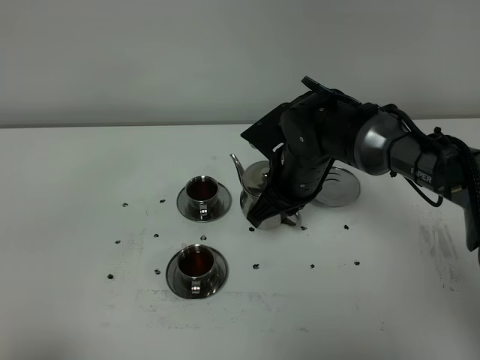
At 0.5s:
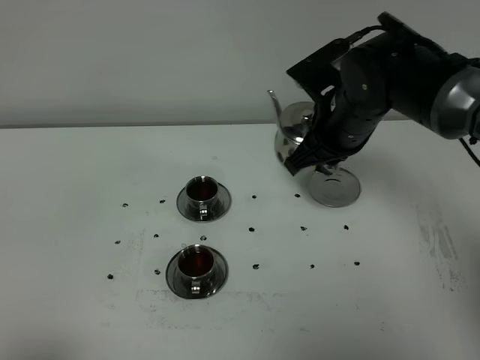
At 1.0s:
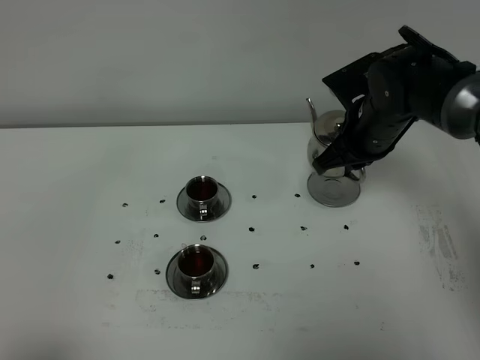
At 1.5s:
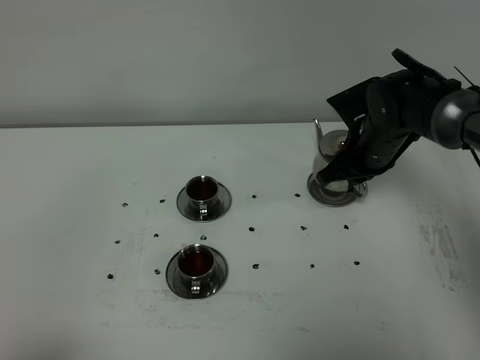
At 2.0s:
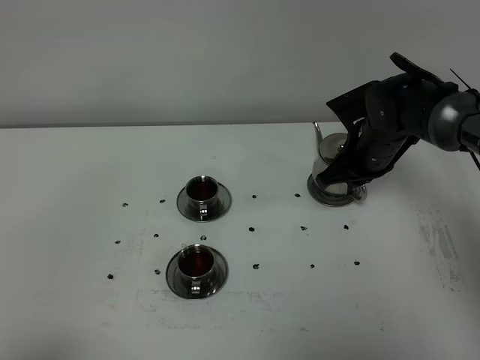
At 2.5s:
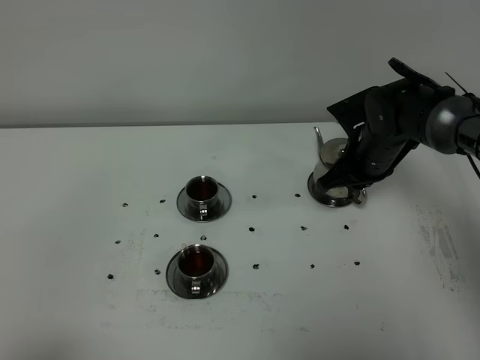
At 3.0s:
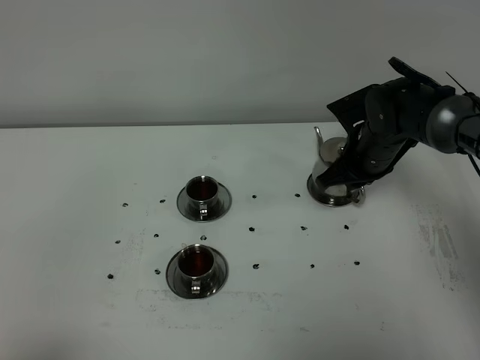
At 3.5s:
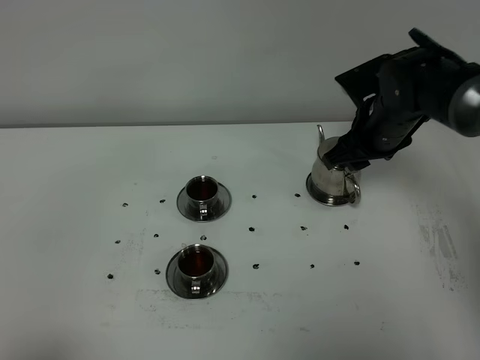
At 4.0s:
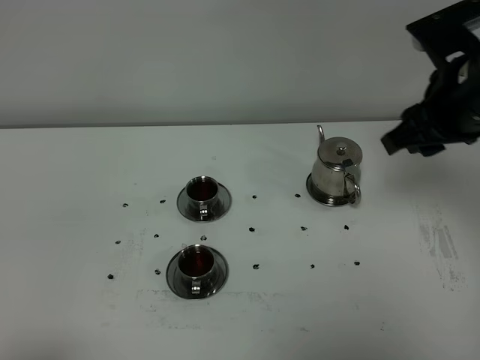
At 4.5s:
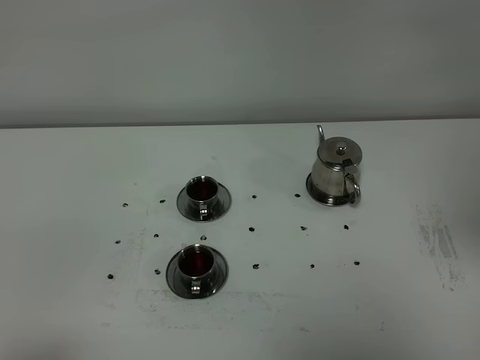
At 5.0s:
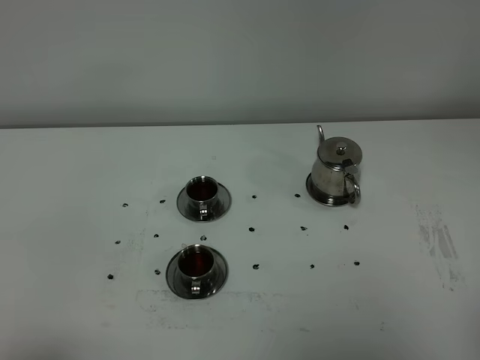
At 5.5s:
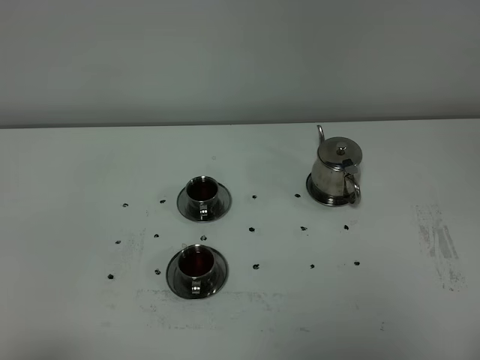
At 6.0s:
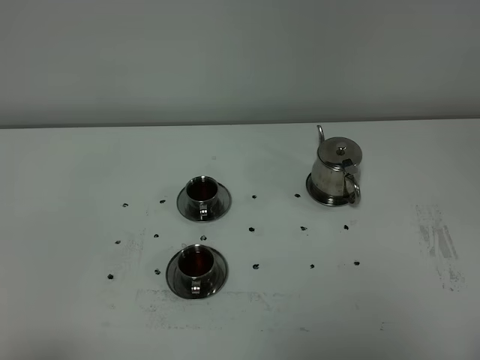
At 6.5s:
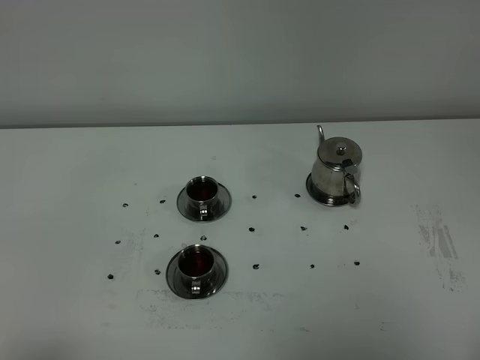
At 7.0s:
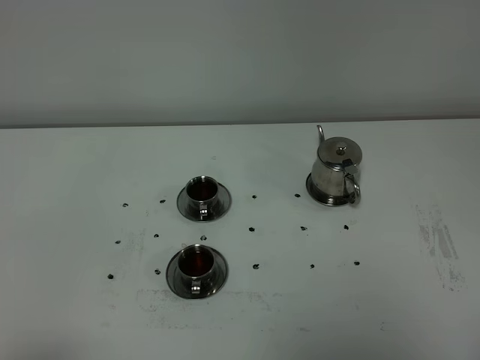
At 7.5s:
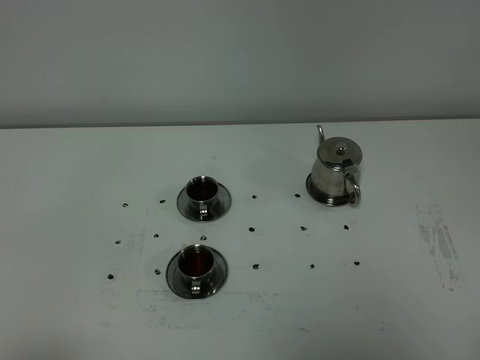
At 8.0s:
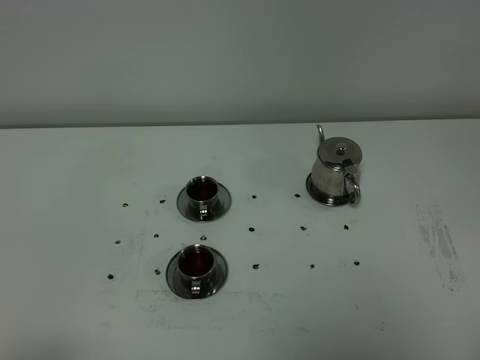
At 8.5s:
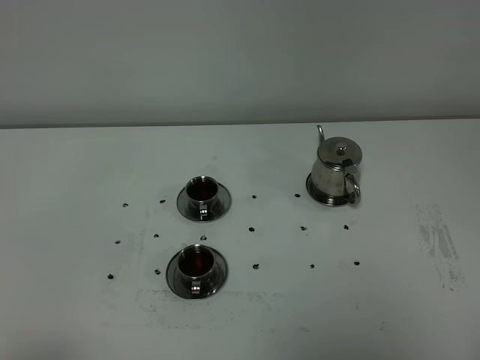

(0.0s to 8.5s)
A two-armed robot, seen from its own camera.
Task of the whole recording: grasp the stainless steel teapot and pour the tea into the two stainless steel teacups one by one, put the stainless steel teapot back in its original place.
0.0s - 2.0s: The right gripper travels to the right by approximately 10 cm.
2.0s - 4.0s: The right gripper shifts roughly 20 cm upward and backward, and opens its fingers.
4.0s - 6.5s: The right gripper heads backward, covering some 30 cm.

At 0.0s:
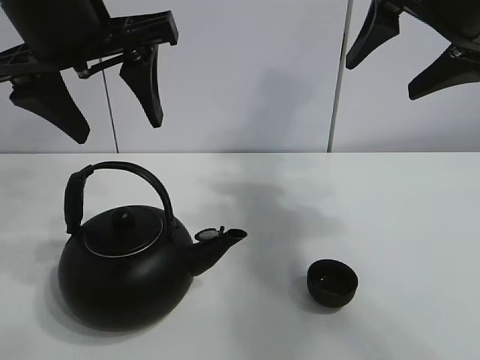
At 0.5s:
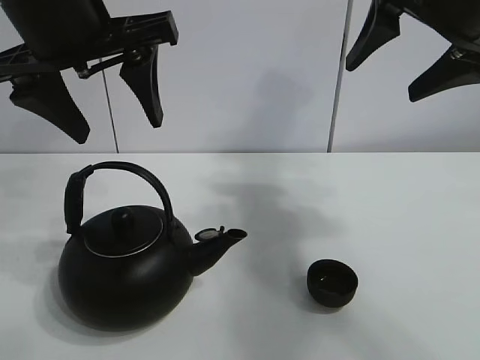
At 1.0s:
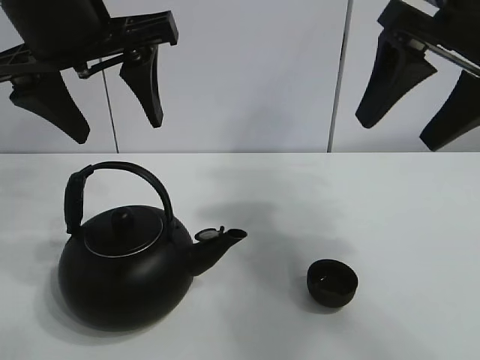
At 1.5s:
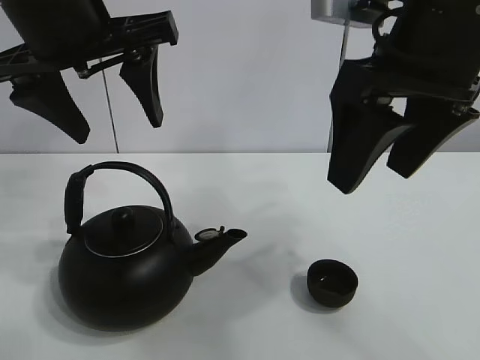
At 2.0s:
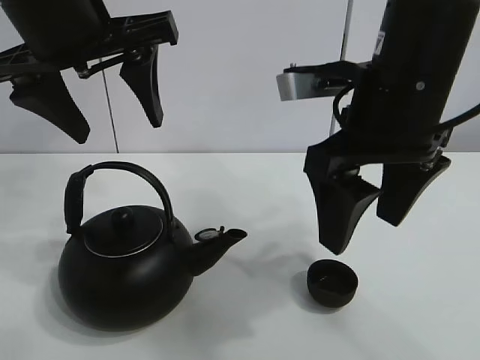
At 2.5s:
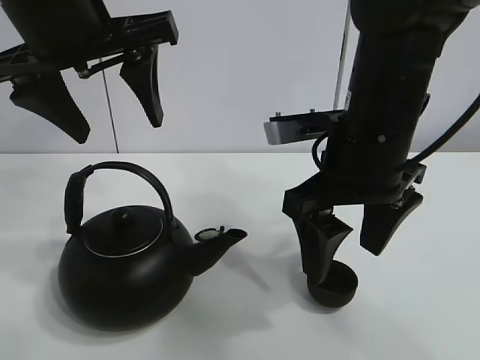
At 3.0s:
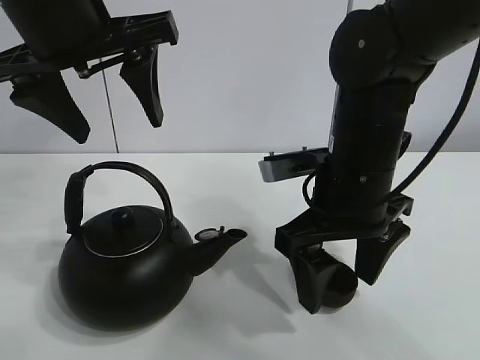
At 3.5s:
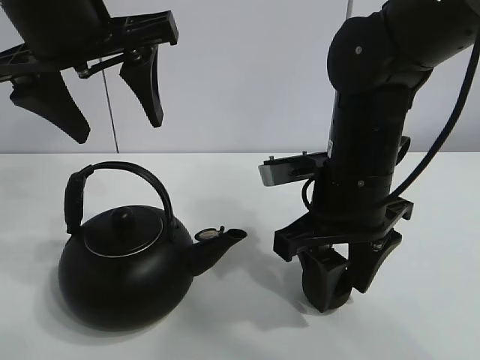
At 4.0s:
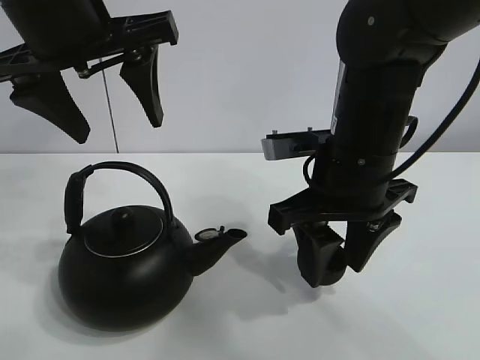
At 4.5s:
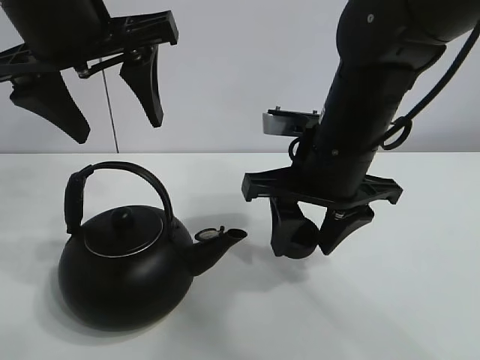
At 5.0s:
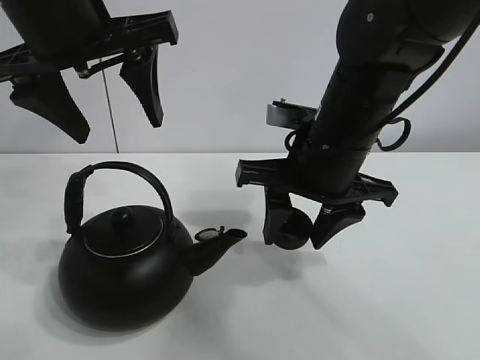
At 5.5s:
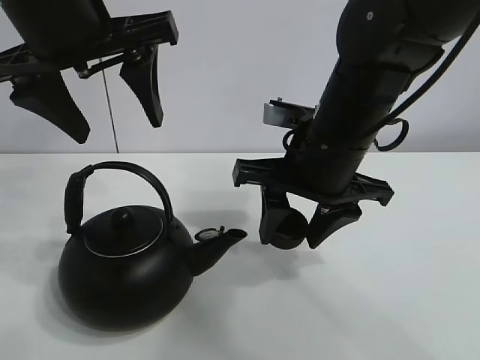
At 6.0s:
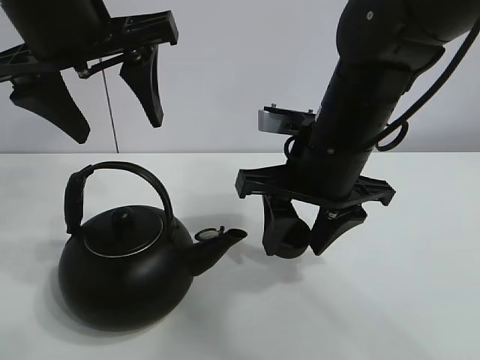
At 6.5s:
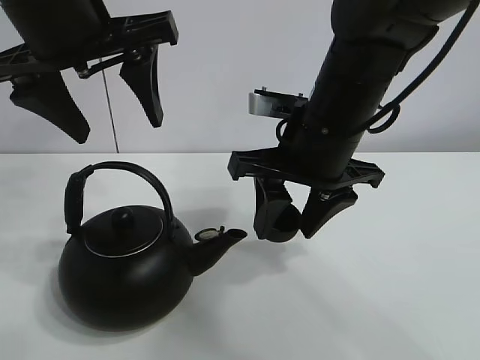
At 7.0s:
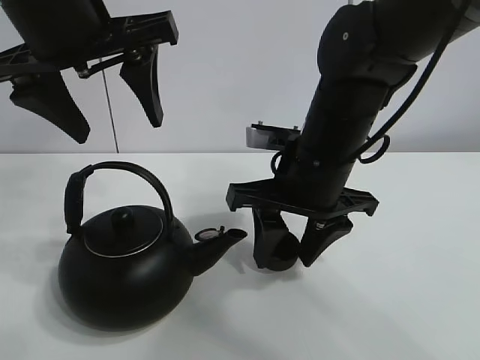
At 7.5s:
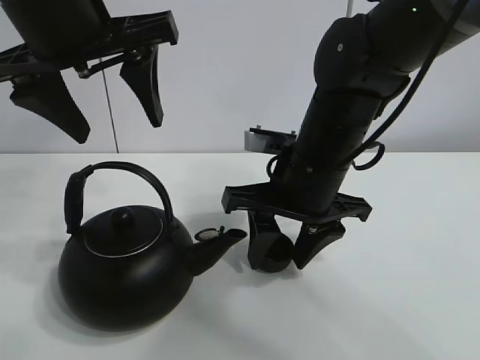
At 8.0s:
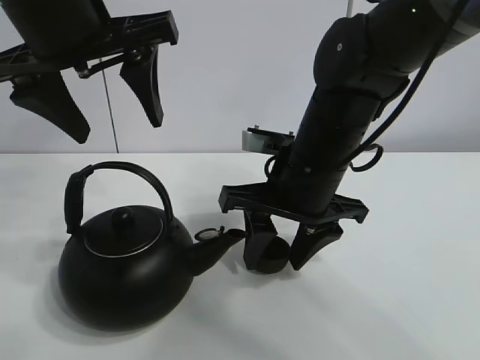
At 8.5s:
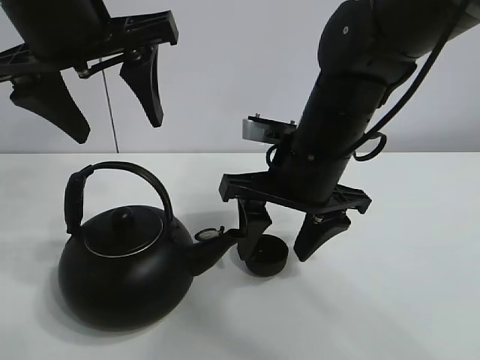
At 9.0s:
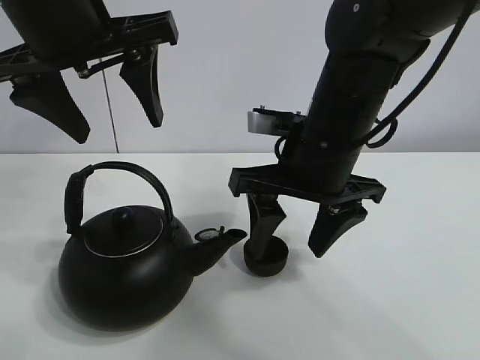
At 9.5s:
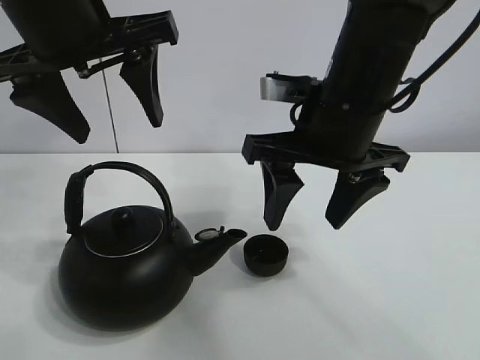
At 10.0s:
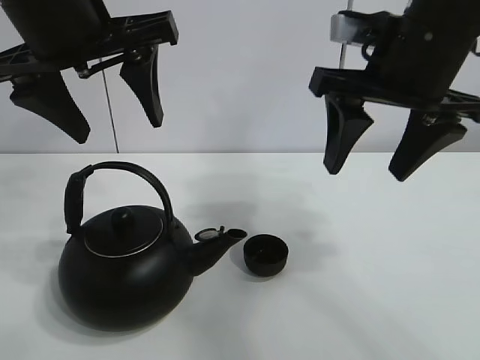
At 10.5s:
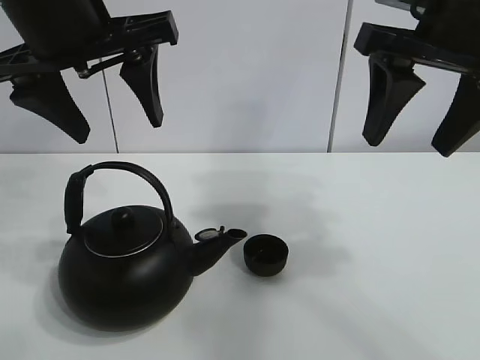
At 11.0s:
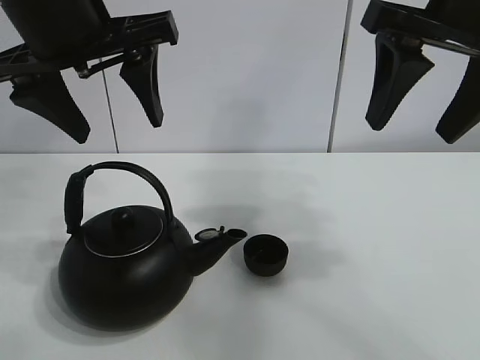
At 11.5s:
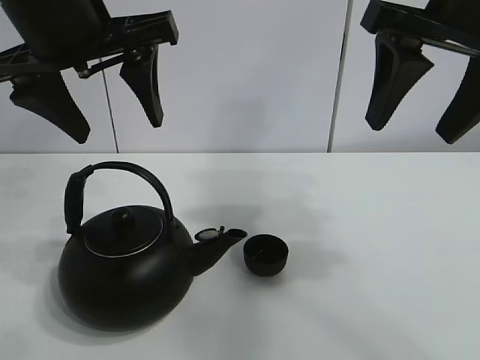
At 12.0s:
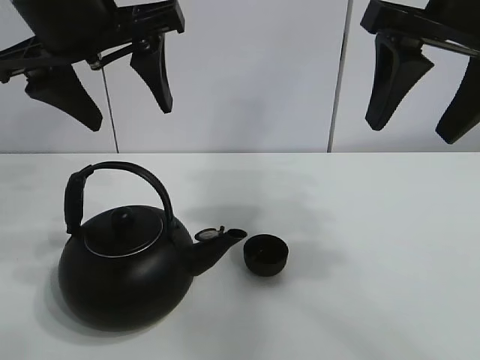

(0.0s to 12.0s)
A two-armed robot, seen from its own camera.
Task of the whole recording: pour tea into the teacup.
Step, 0.0s - 3.0s: Pick up the teacup with the right gripper.
Step, 3.5s - 8.5s: Place the teacup in the center of view with the right gripper.
2.0s - 4.0s: The right gripper goes roughly 5 cm downward, and closes up.
6.0s - 8.0s: The grippers make only small movements.
8.0s - 10.0s: The right gripper moves upward and to the right, roughly 15 cm, and opens its fingers.
10.0s - 12.0s: The right gripper moves upward, some 5 cm.

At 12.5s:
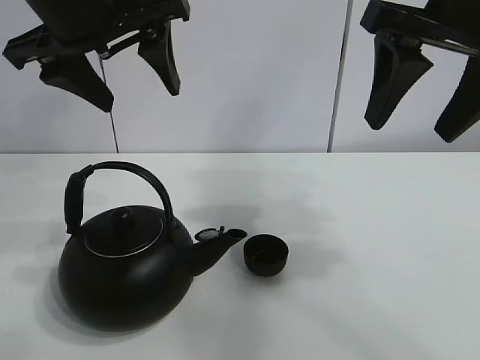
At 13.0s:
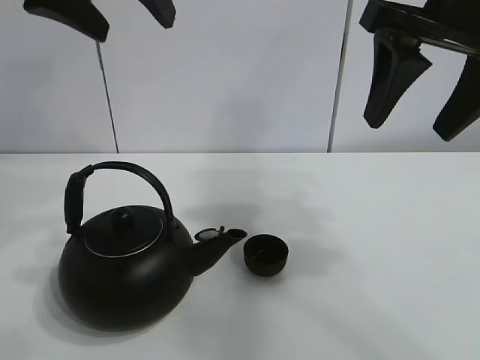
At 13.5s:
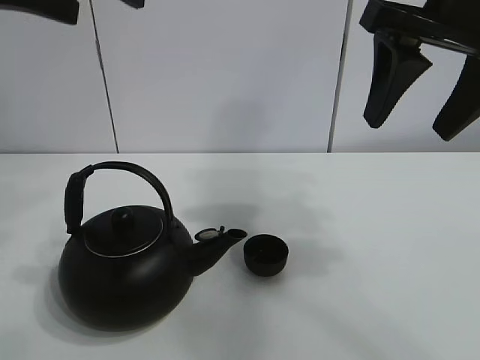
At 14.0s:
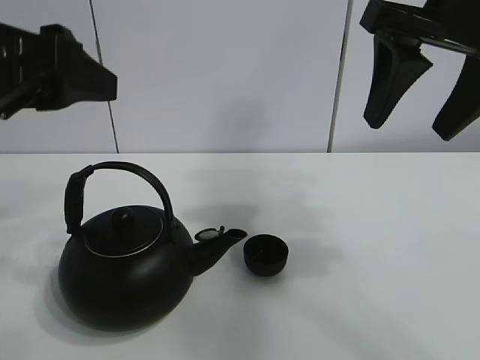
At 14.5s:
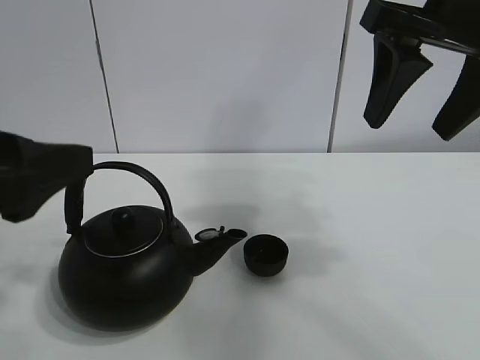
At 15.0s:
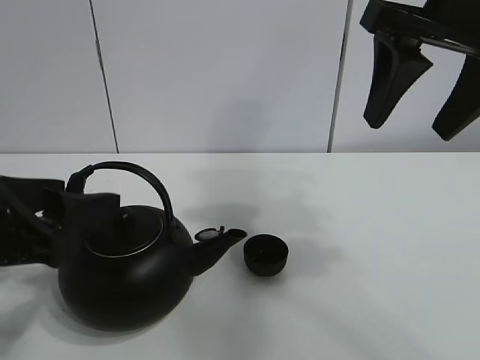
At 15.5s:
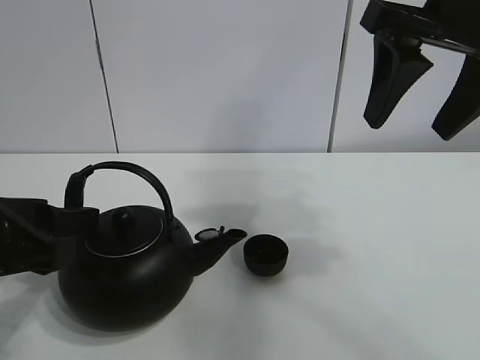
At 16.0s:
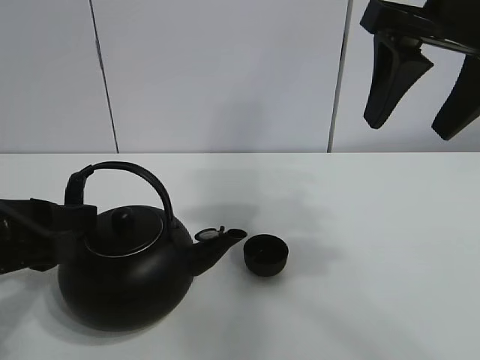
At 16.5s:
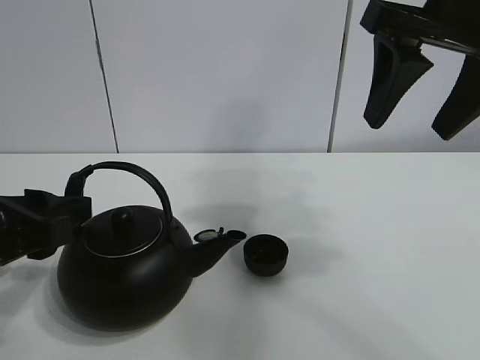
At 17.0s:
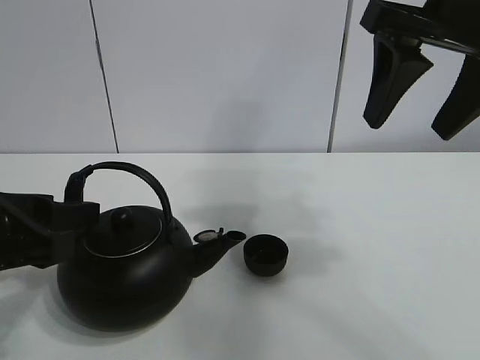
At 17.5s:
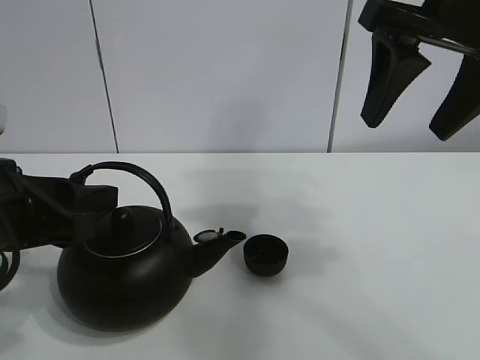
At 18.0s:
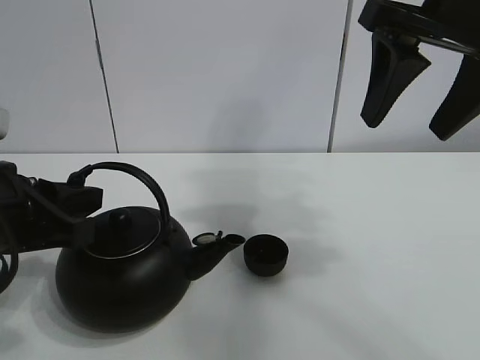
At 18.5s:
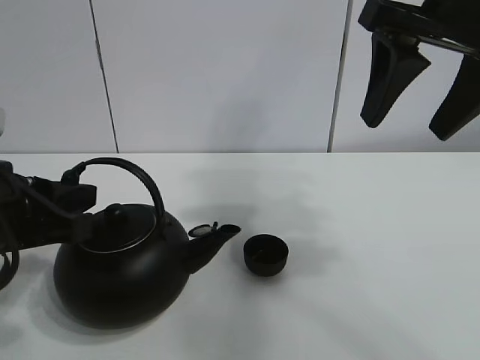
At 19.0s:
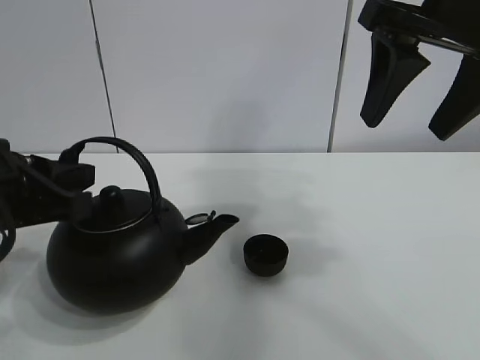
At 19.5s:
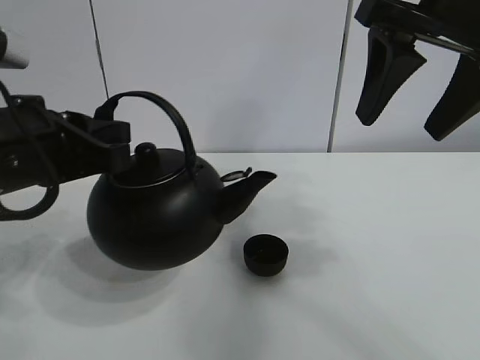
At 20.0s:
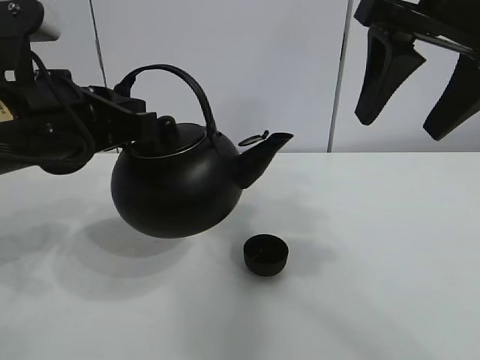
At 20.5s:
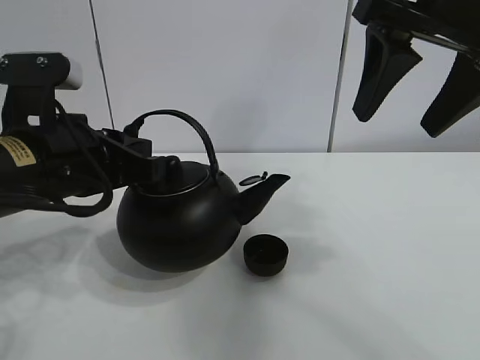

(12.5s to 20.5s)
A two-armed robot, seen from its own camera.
Task of the whole recording: pour tea into the teacup.
Step, 12.5s - 18.5s: Pick up the teapot with the left gripper.
12.5s - 14.5s: The left gripper goes approximately 20 cm backward, downward and to the left.
14.5s - 16.5s: The left gripper travels downward by about 5 cm.
16.5s - 18.5s: The left gripper closes its fingers.
18.5s - 20.5s: The left gripper changes place by about 5 cm.
